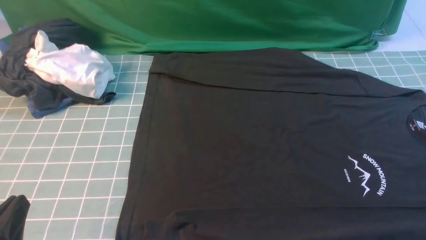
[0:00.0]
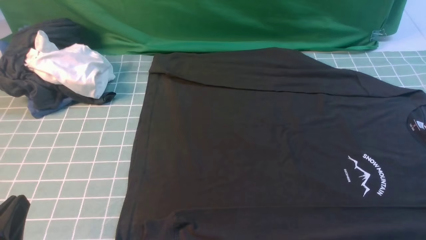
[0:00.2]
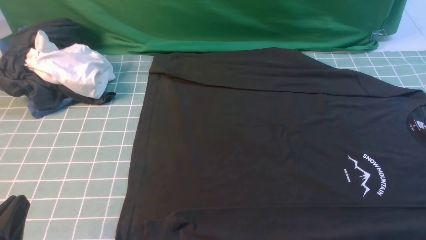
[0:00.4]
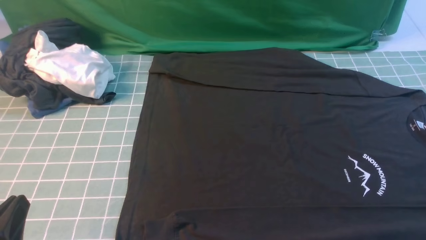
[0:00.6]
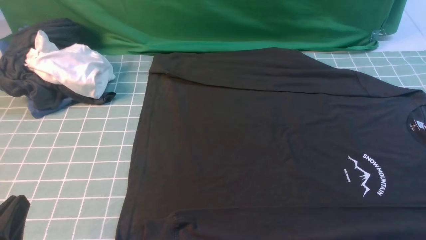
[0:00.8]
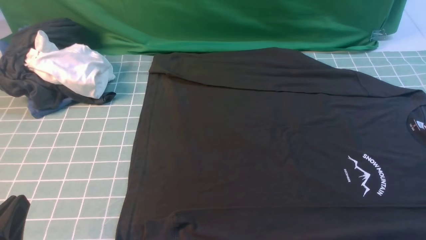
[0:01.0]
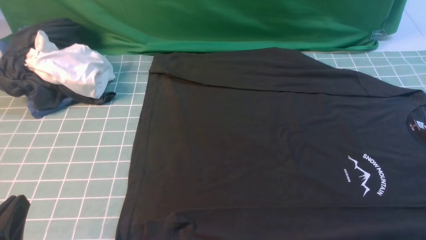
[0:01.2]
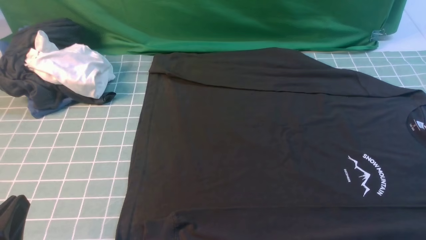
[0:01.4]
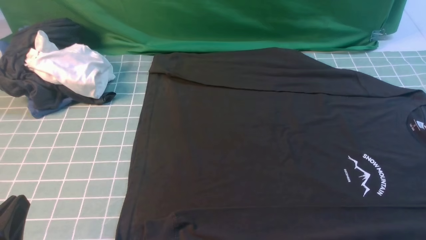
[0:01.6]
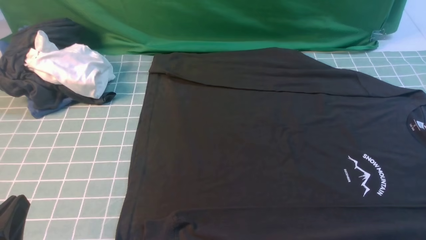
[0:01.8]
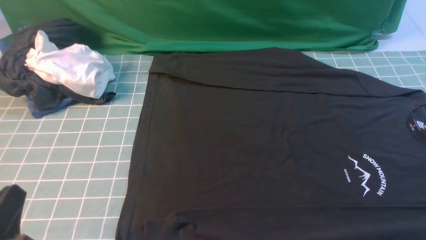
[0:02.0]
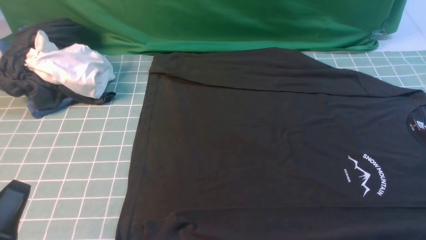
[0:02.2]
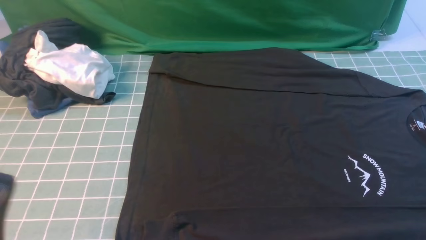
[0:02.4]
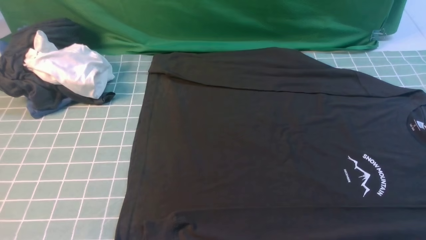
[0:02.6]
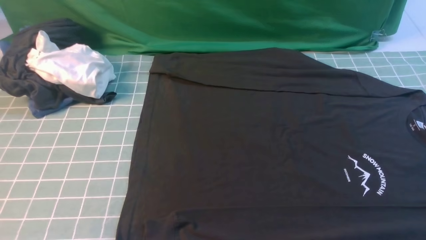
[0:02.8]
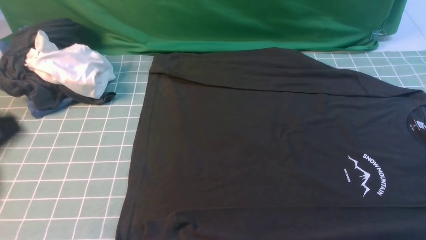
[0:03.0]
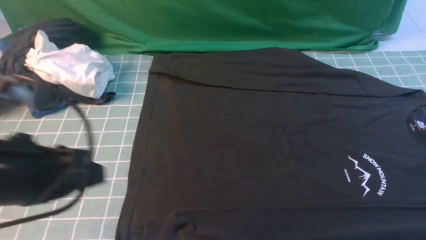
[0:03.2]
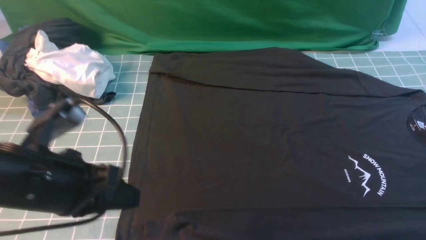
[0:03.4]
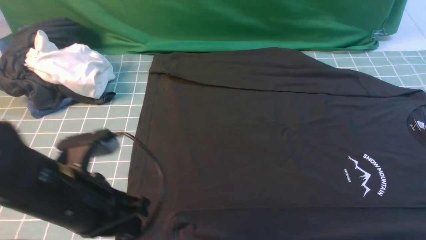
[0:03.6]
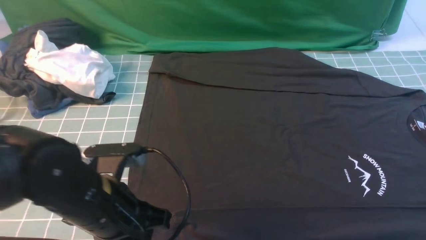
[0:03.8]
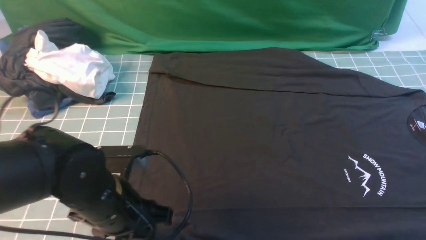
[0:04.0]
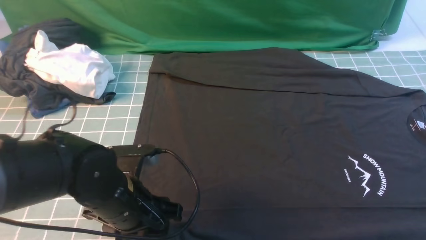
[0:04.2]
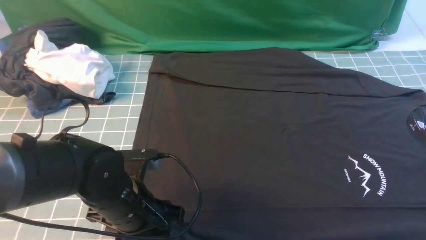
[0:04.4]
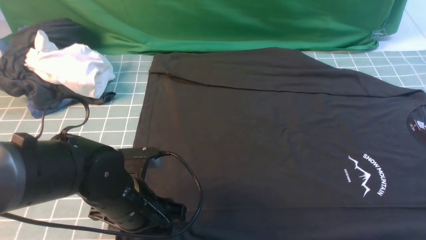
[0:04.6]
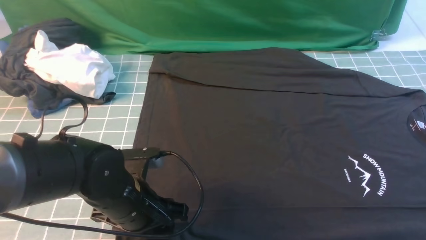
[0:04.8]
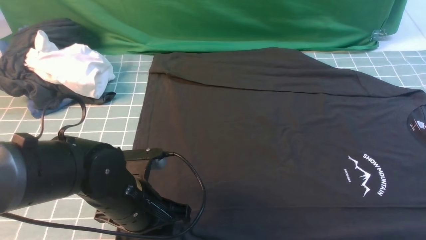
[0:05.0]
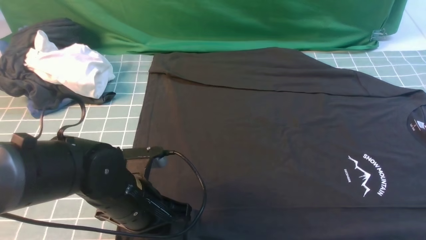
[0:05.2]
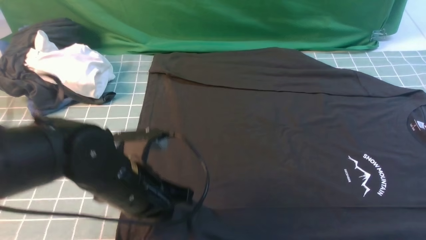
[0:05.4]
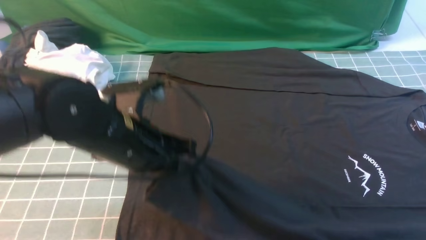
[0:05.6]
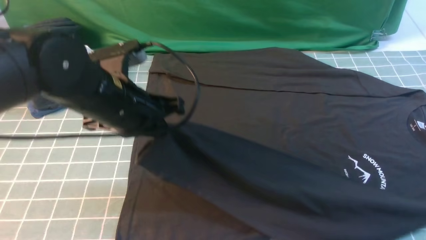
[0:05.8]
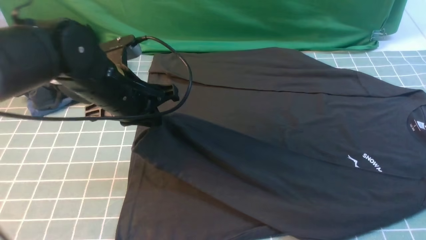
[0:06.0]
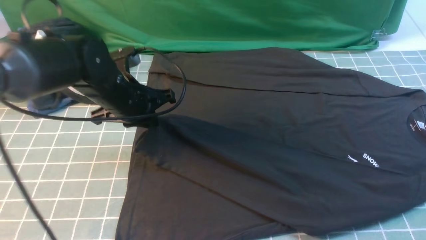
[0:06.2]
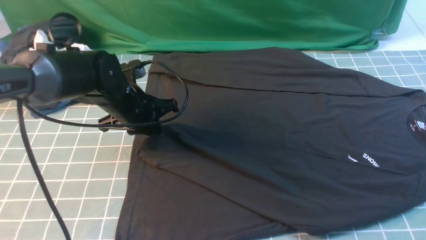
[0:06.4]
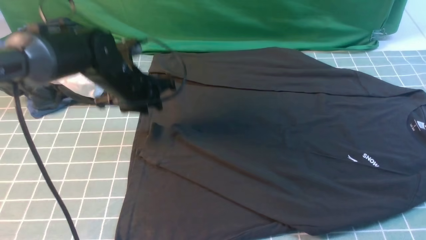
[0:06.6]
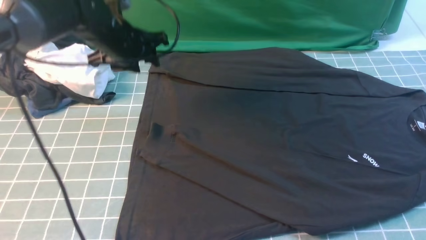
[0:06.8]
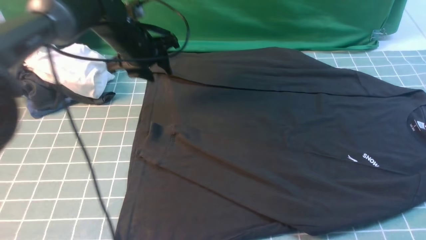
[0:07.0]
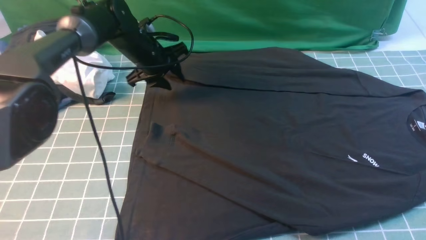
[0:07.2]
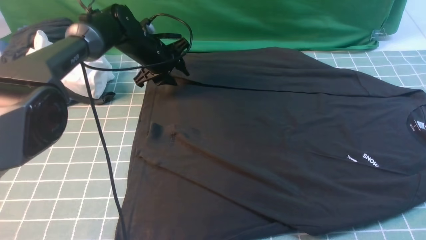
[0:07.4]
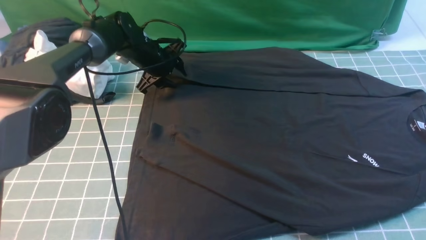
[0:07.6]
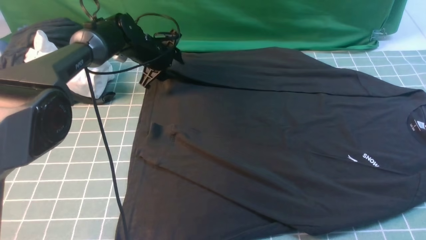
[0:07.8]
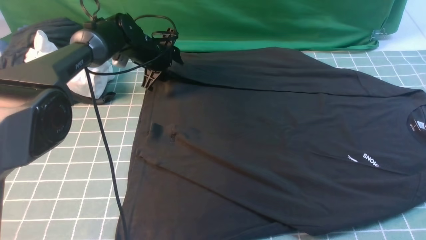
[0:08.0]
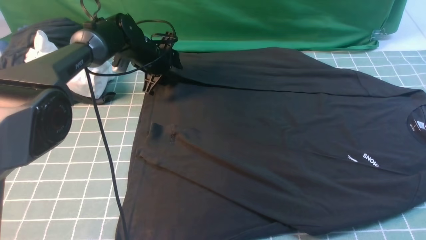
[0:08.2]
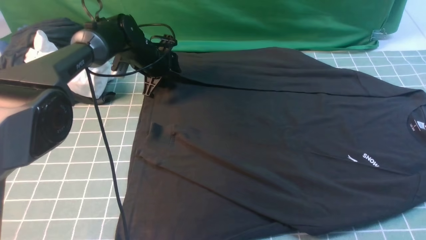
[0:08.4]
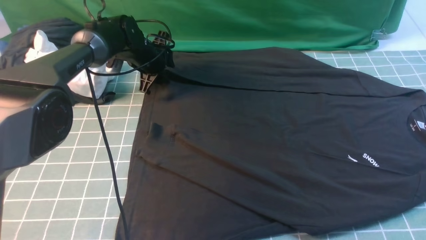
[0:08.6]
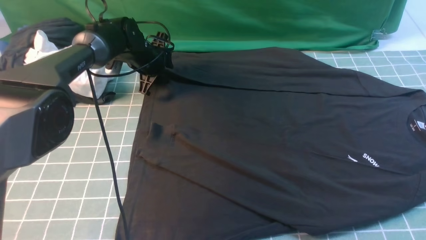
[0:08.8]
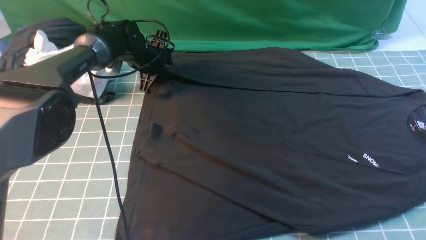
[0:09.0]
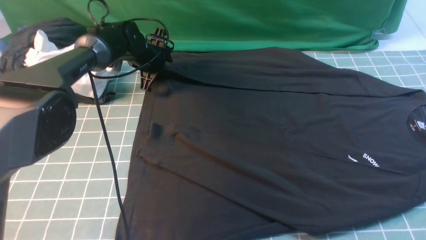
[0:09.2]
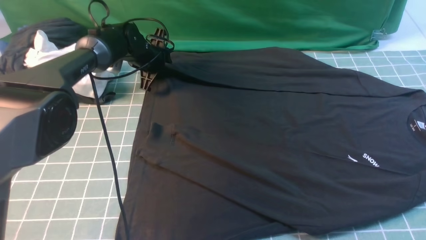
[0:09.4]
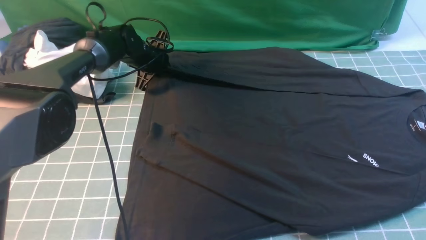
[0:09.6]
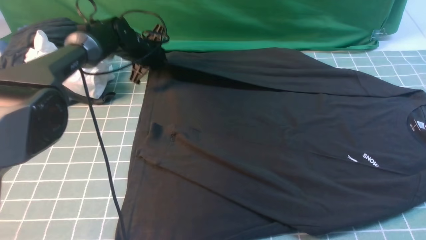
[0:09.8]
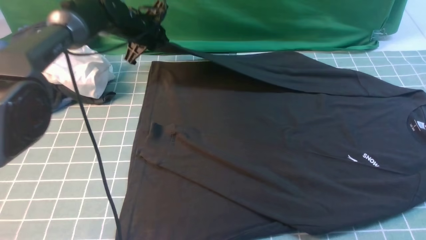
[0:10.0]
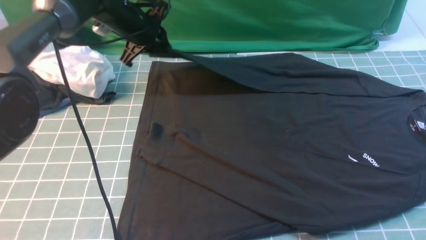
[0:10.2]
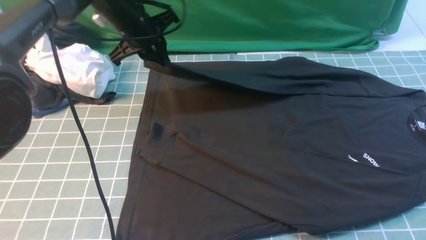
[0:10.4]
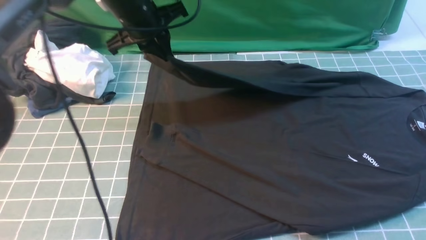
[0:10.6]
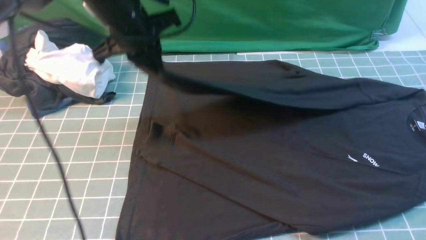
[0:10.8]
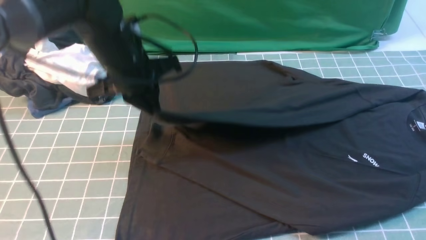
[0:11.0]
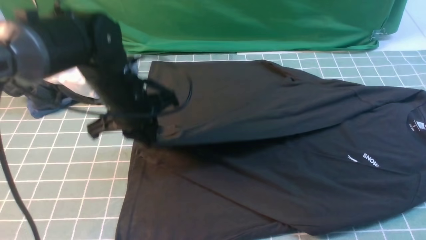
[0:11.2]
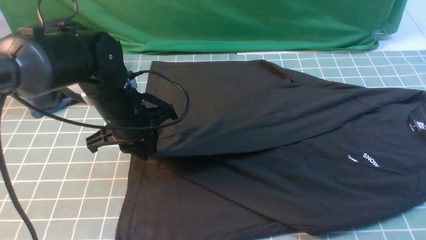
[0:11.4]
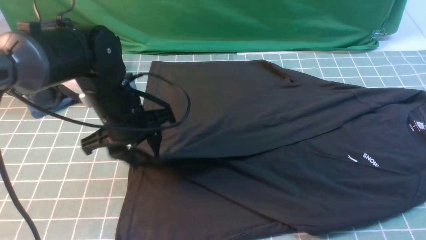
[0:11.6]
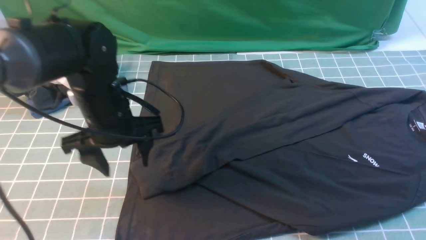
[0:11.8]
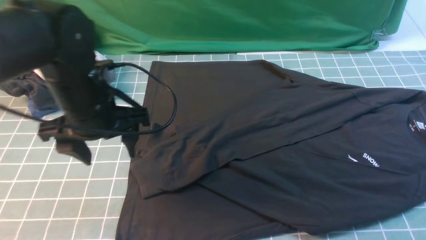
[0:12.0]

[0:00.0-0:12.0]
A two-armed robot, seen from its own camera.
Step, 0:00.0 to 0:05.4: use the left arm to clamp the cuff closest to it.
Step, 0:05.6 to 0:06.4: use the left arm to drag and place the cuff at the centered position on the left edge of the fabric.
Step, 0:06.8 to 0:09.8: use the left arm to clamp the cuff farthest from it.
Step, 0:10.0 to 0:11.8: use the left arm to drag and drop the cuff onto the cuff closest to the left arm.
0:00.0 to 0:01.6: Neither gripper changes place.
0:01.6 to 0:03.0: The left gripper shifts approximately 15 cm upward.
0:03.0 to 0:04.4: The left gripper is displaced downward, forward and to the right by roughly 25 cm, and opens. The right gripper is displaced downward and forward by some 10 cm, and opens up.
0:04.4 to 0:06.0: The left gripper shifts approximately 15 cm forward and upward, and closes.
0:06.0 to 0:07.6: The left gripper heads forward and downward, covering roughly 20 cm, and opens.
0:09.0 to 0:10.4: The left gripper heads upward and backward, covering about 15 cm, and closes its fingers.
0:10.4 to 0:12.0: The left gripper is displaced backward by some 20 cm, and opens its fingers. Meanwhile the right gripper ends up about 5 cm from where it was.

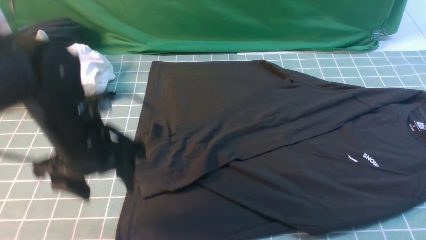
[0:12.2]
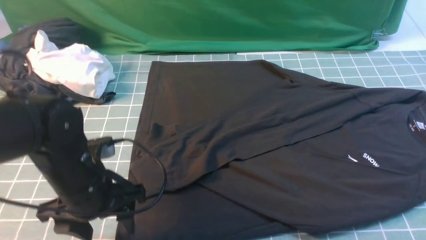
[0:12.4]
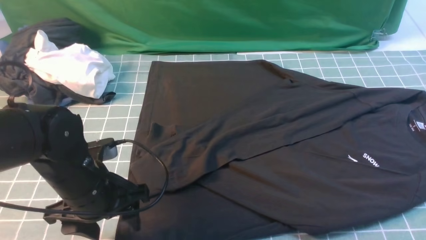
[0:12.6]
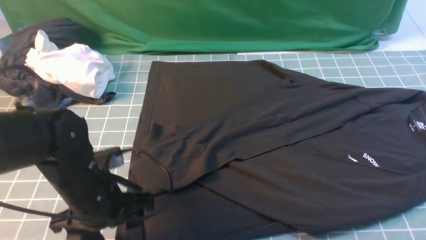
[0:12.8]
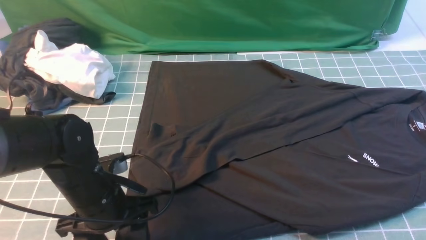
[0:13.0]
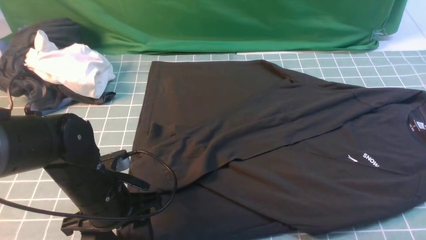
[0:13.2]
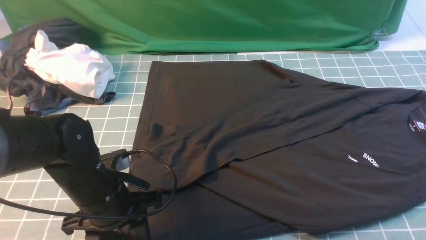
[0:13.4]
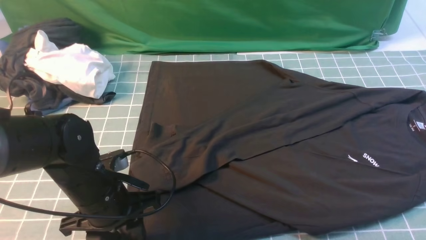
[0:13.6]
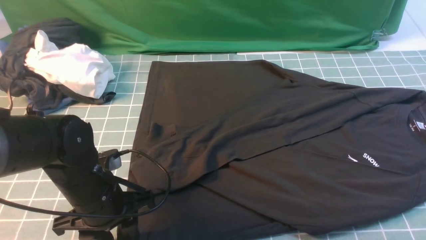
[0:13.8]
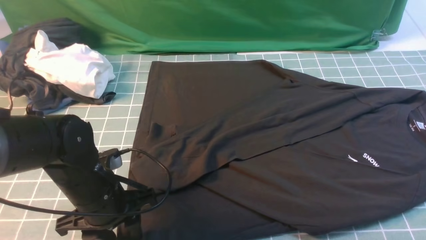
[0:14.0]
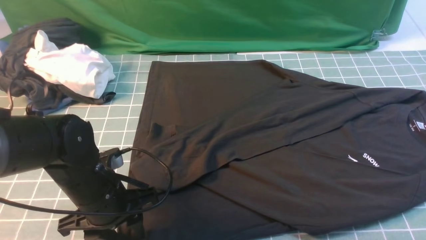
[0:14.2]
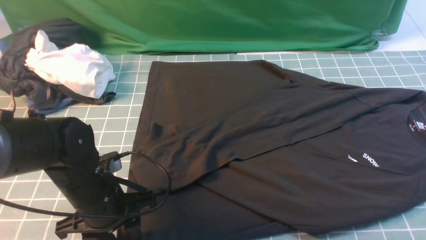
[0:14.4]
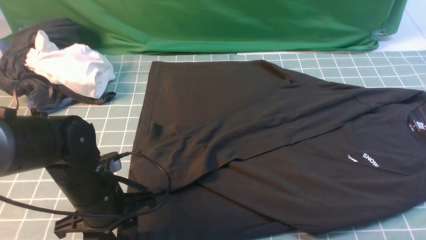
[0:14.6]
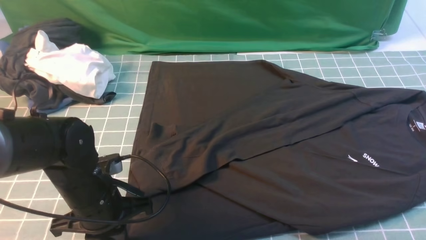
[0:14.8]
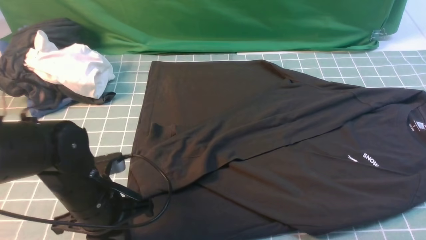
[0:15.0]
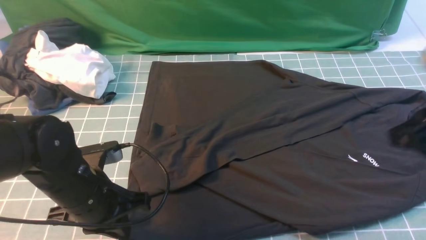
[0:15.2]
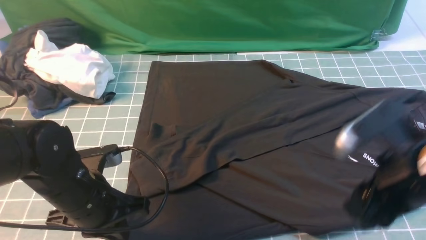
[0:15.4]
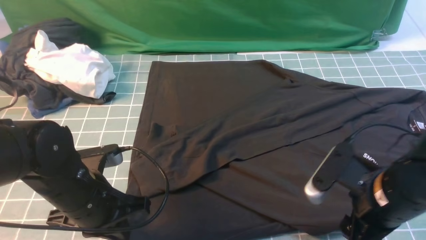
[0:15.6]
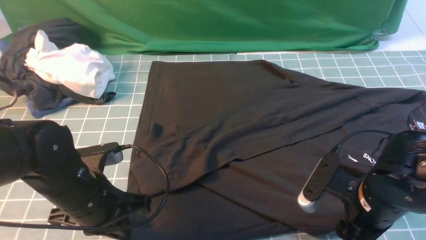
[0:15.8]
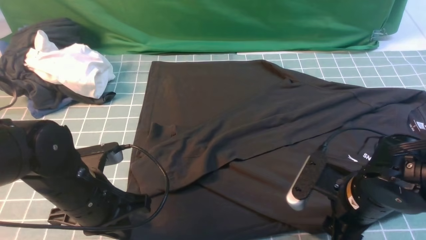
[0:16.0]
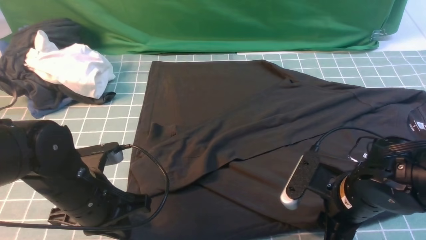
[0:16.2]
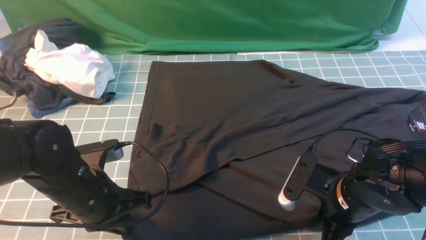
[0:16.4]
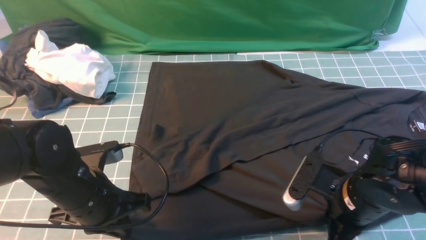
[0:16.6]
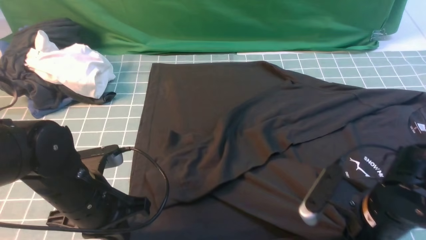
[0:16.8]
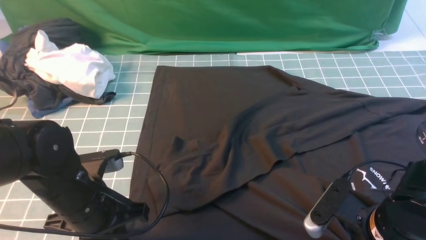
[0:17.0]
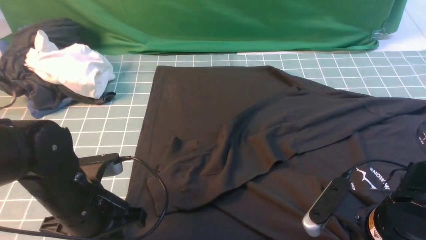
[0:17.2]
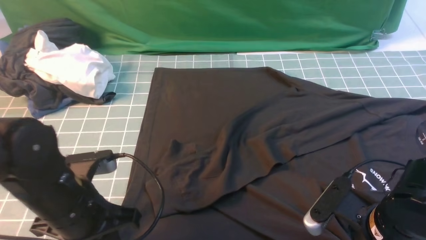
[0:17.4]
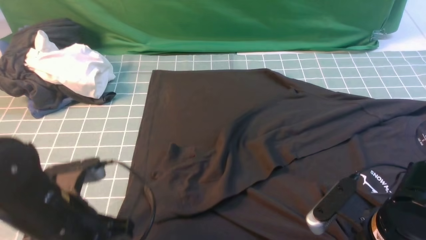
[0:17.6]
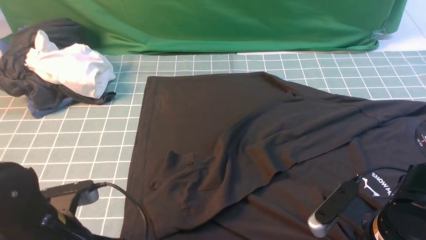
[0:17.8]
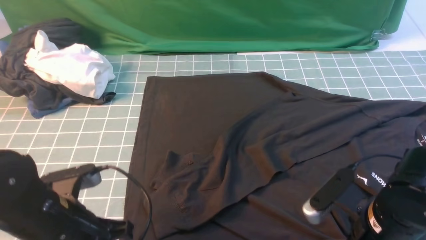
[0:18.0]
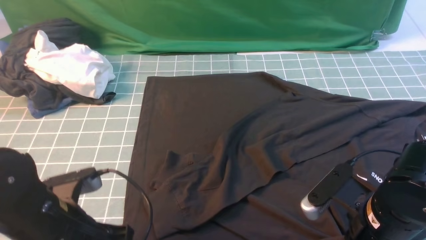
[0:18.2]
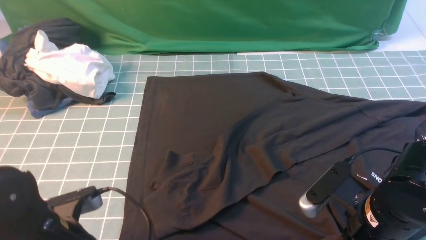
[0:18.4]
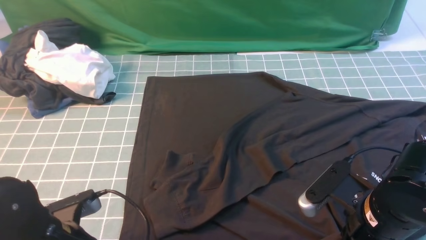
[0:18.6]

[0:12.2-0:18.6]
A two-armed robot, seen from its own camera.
0:12.2 to 0:13.8: The left gripper heads downward, covering approximately 5 cm, and closes its fingers.
0:13.8 to 0:15.4: The right gripper goes some 15 cm to the left and downward; the left gripper closes its fingers.
0:15.4 to 0:17.0: The right gripper travels downward by some 10 cm, and closes up.
0:17.0 to 0:18.6: The left gripper heads backward, covering approximately 5 cm, and opens up.
